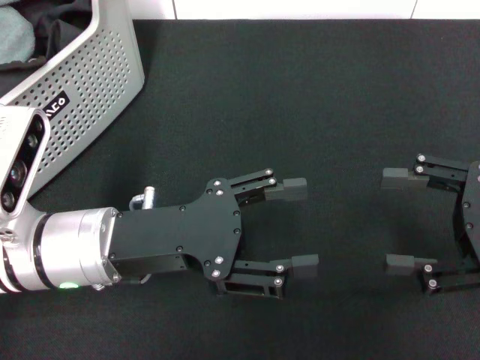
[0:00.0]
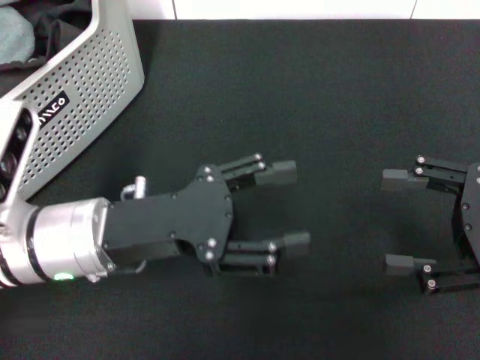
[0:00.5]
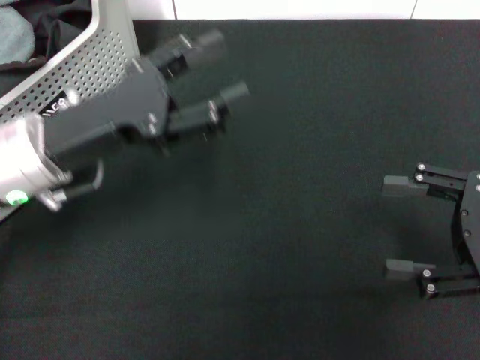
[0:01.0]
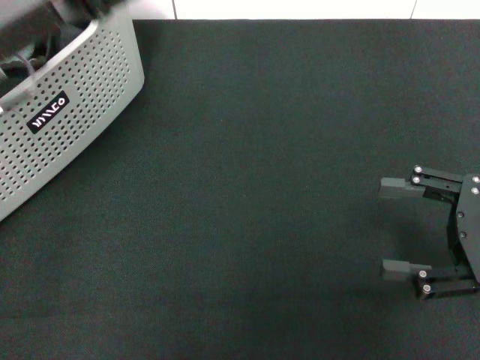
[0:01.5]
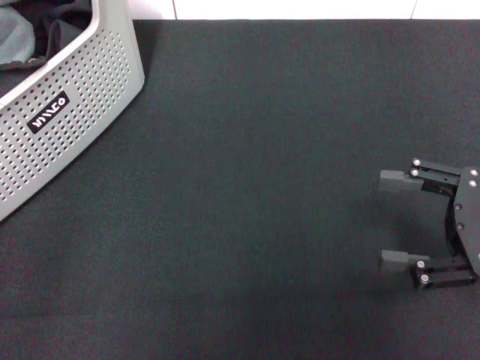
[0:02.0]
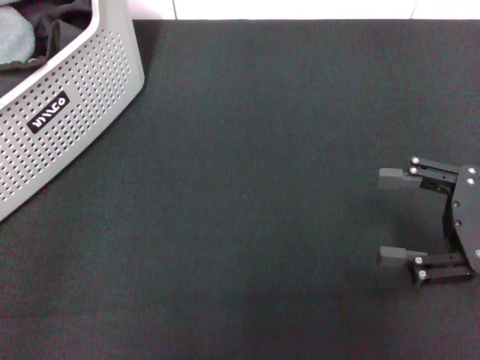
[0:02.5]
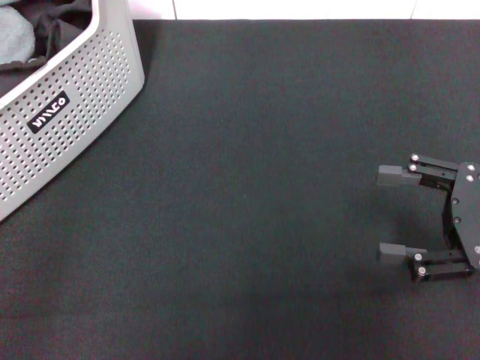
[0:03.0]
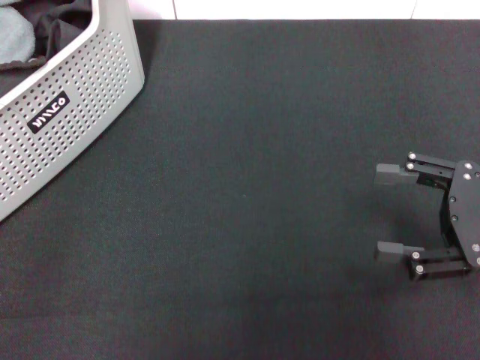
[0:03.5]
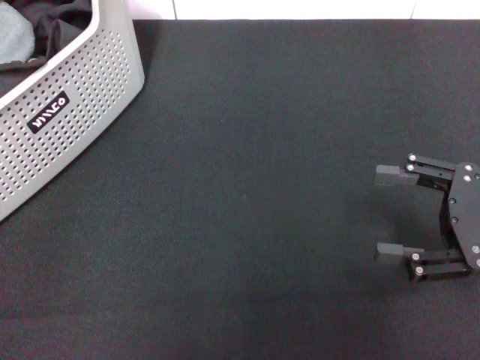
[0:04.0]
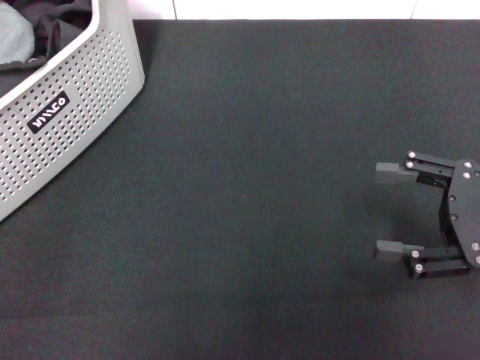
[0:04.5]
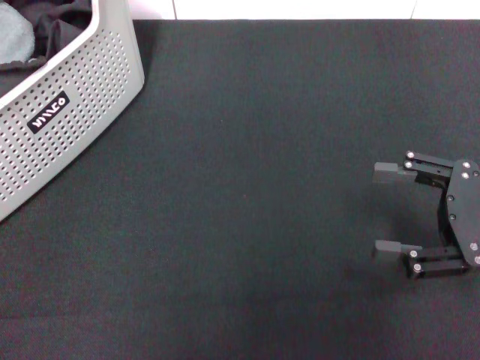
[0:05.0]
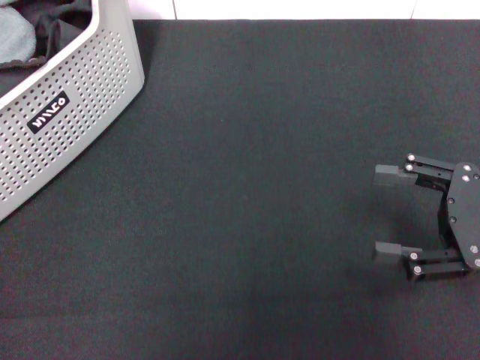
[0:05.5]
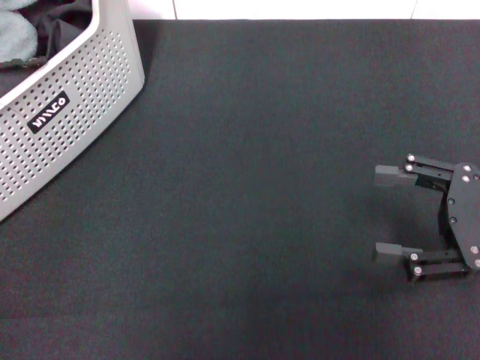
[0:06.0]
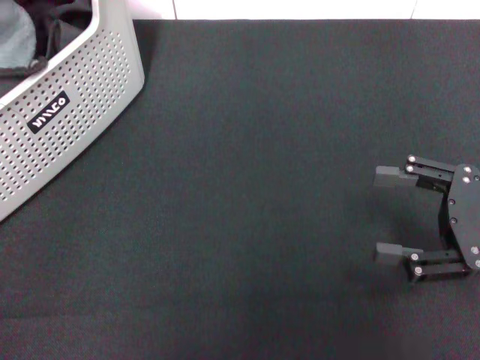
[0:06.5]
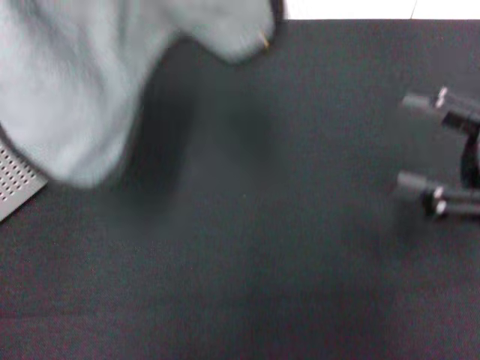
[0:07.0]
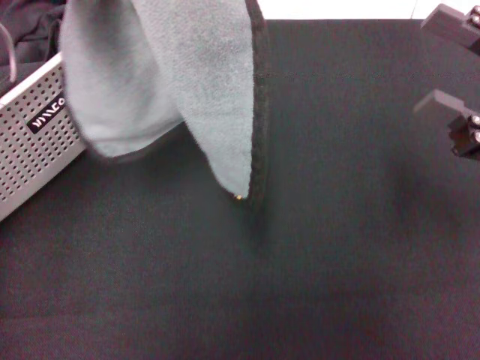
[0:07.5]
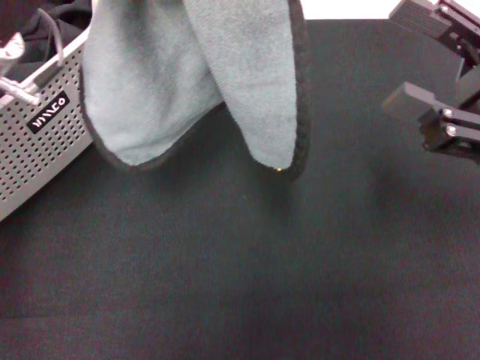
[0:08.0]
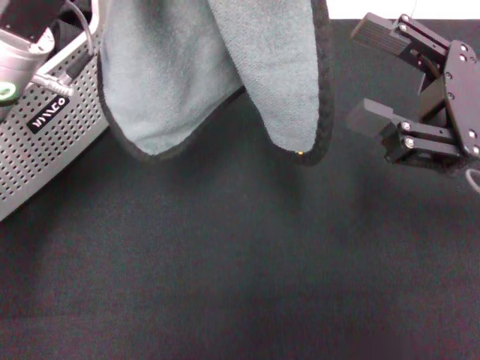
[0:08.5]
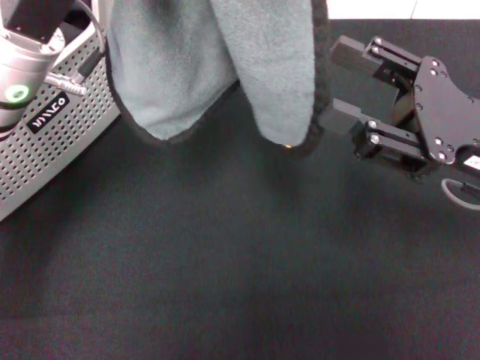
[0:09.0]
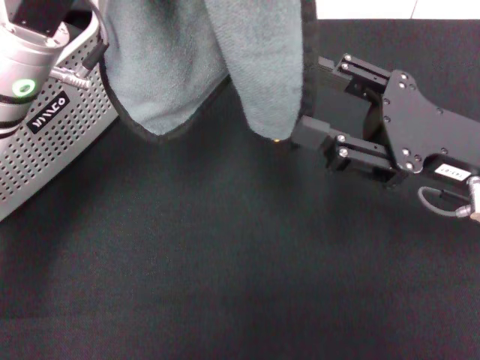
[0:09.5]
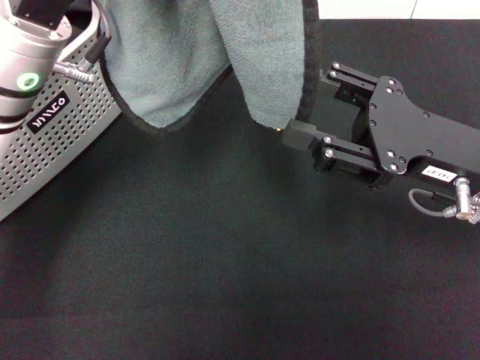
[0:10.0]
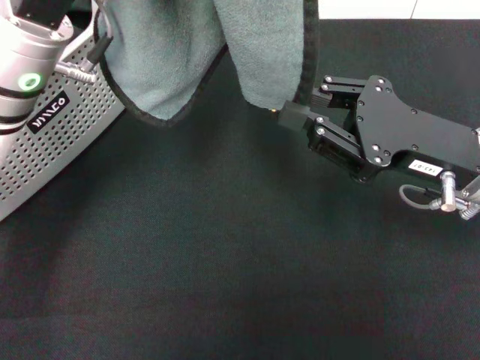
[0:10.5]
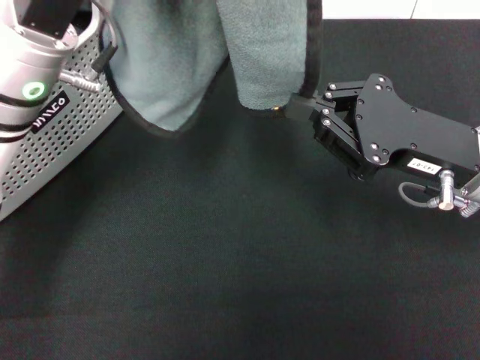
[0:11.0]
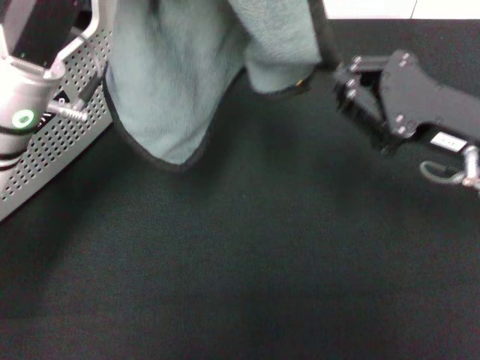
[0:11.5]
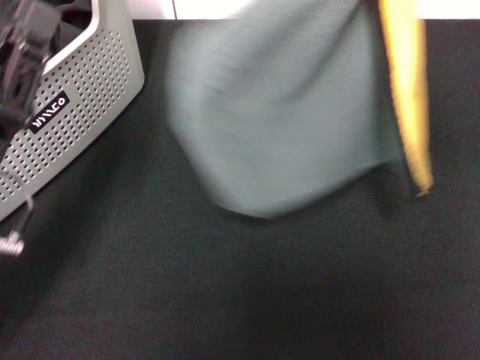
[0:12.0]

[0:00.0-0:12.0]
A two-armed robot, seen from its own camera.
Task of the whole recording: pick up the towel from the storage box and lay it flat on the black tablecloth.
Step, 0:00.0 to 0:05.5: Pick up a towel with the left gripper.
Step, 0:06.0 to 0:11.0: Spread the towel flat with the left gripper.
0:00.0 to 0:02.0: The left gripper shifts approximately 20 cm upward, to the left and forward.
0:02.0 to 0:04.0: The left gripper moves to the left, some 10 cm.
0:04.0 to 0:06.0: The left gripper closes its fingers.
0:06.0 to 0:08.0: The left gripper goes approximately 15 cm to the right; the right gripper ends up roughly 5 cm from where it was.
0:08.0 to 0:10.0: The right gripper changes place by roughly 5 cm.
0:10.0 to 0:12.0: The right gripper is displaced upward and to the right by some 15 cm, and closes its fingers, while the left gripper travels downward, backward and to the left by some 15 cm.

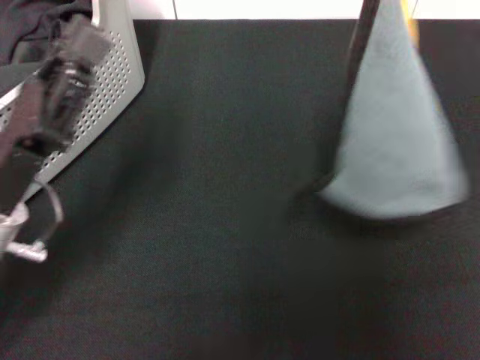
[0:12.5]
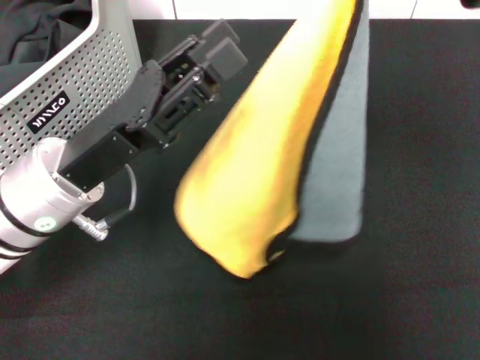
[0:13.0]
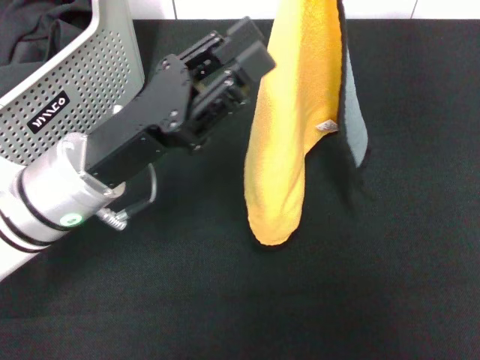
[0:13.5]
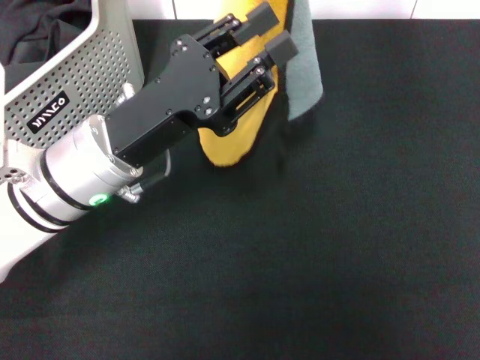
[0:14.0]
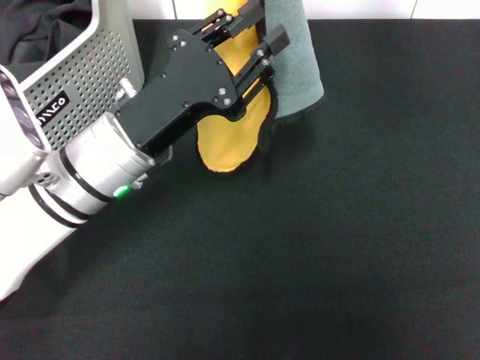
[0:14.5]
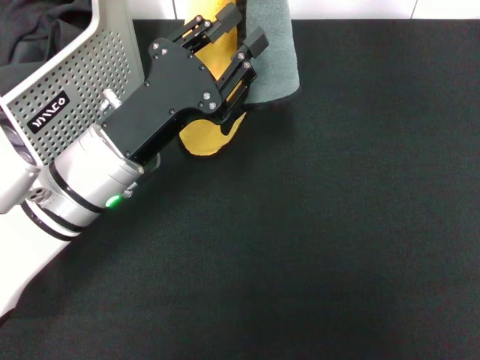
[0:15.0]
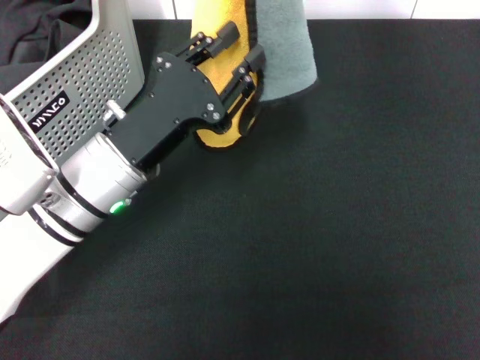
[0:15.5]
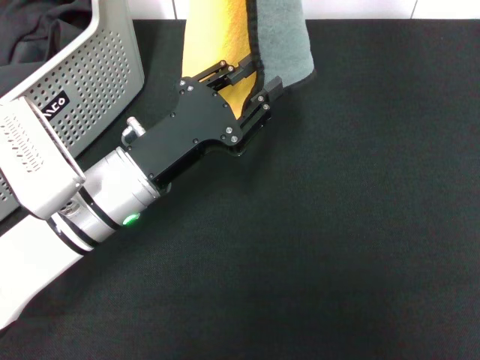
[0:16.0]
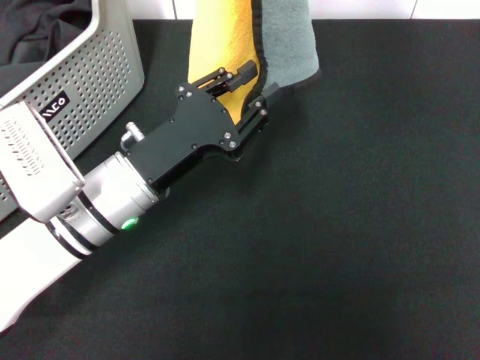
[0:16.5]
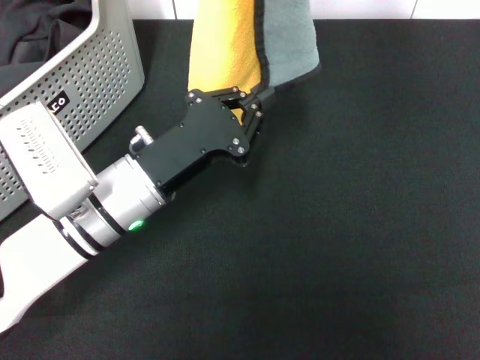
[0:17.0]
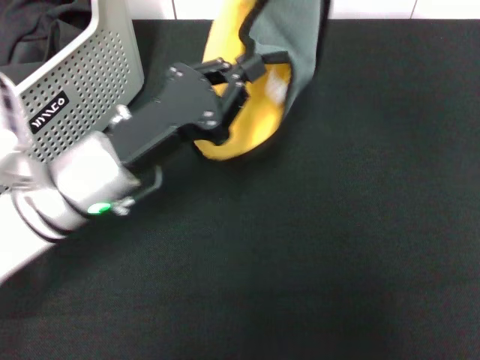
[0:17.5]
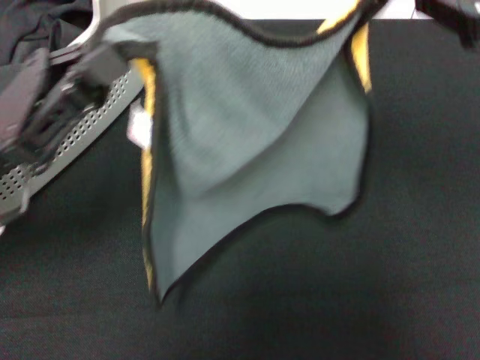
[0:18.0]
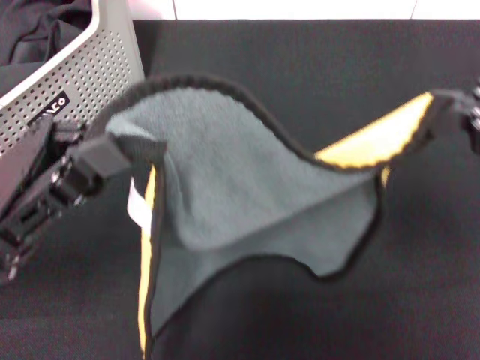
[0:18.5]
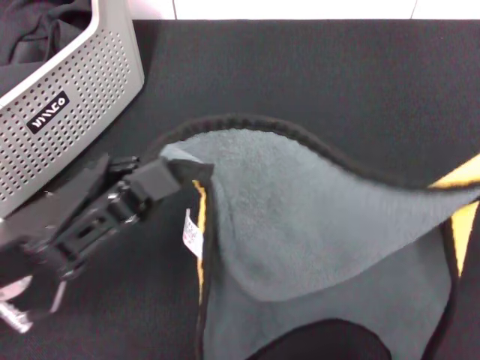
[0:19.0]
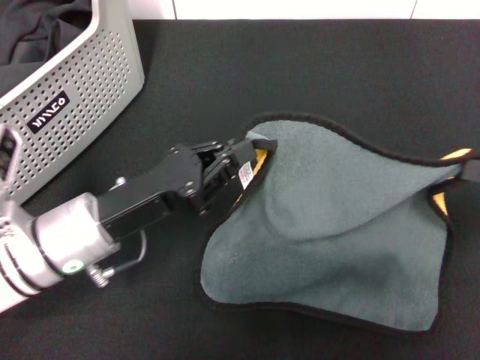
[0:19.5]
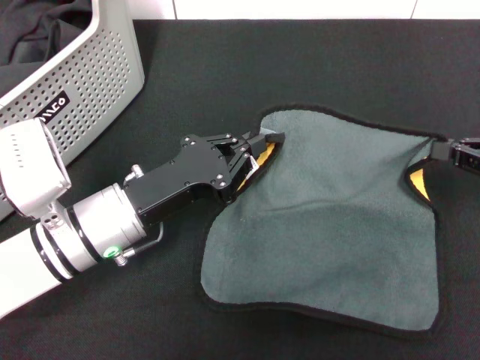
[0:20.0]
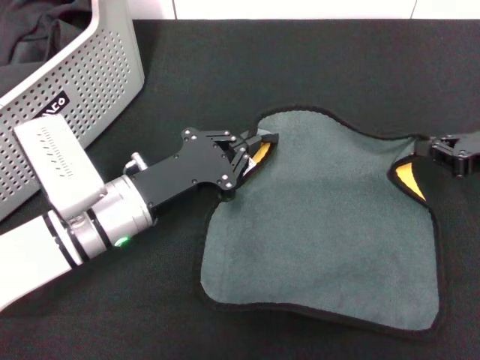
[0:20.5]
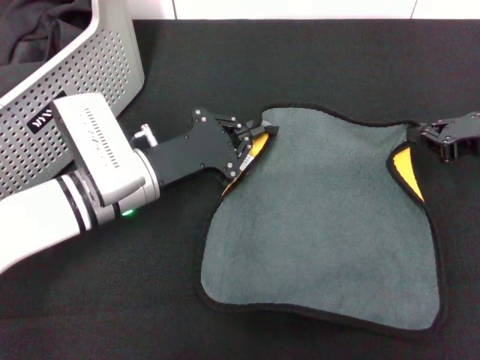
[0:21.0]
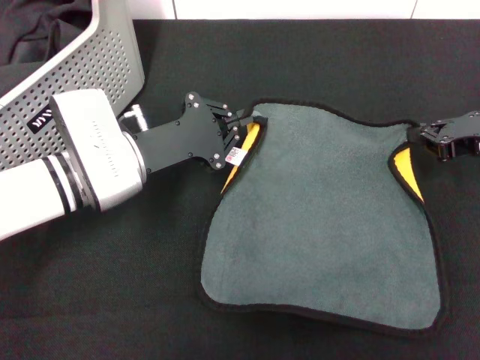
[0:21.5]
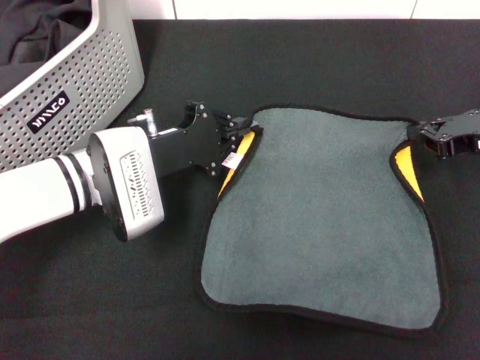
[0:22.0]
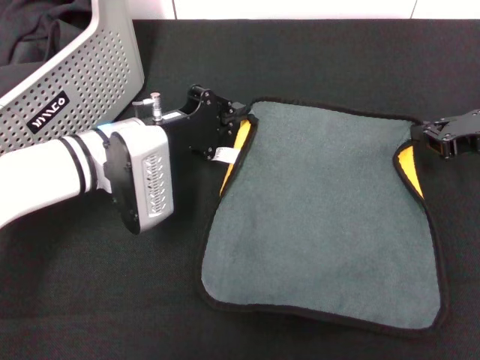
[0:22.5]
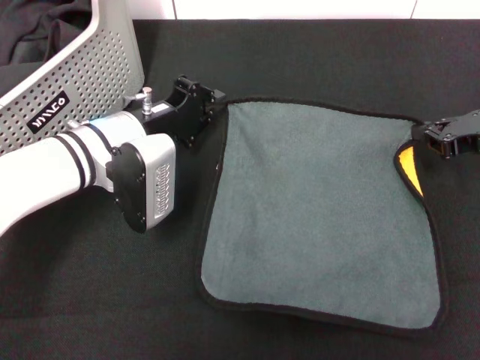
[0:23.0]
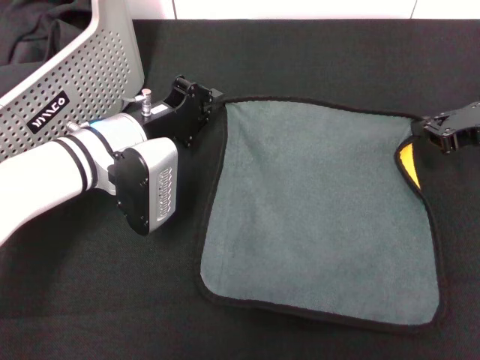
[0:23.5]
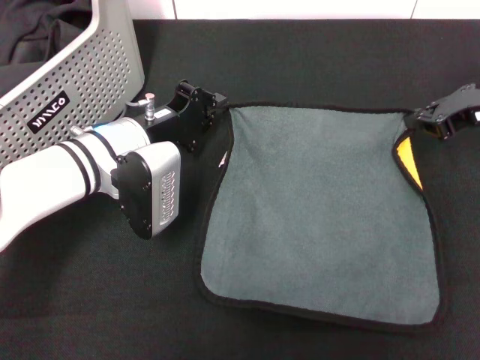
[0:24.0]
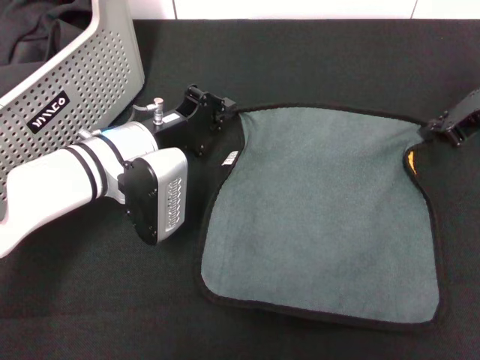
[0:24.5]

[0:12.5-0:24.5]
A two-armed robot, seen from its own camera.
Task of the whole recording: pick up the towel from the storage box and lay it flat on the black tablecloth.
0:12.5 to 0:14.5: The left gripper shifts roughly 10 cm to the right and forward. Meanwhile the right gripper moves to the left and forward, approximately 10 cm.
0:16.5 to 0:18.5: The left gripper shifts approximately 15 cm to the left, upward and backward, and closes its fingers. Meanwhile the right gripper moves backward, to the right and downward, about 20 cm.
0:18.5 to 0:20.5: The right gripper travels downward and forward by about 25 cm, while the left gripper moves downward, to the right and forward, approximately 15 cm.
0:20.5 to 0:22.5: The left gripper is displaced forward by some 5 cm.
0:22.5 to 0:24.5: The right gripper heads upward, covering about 5 cm.

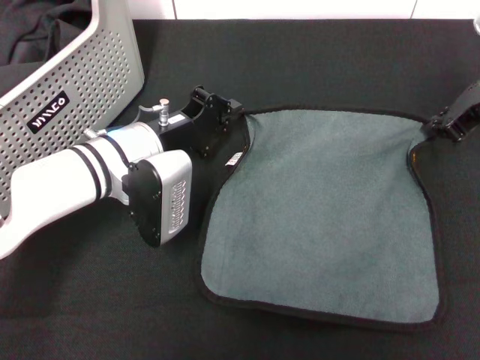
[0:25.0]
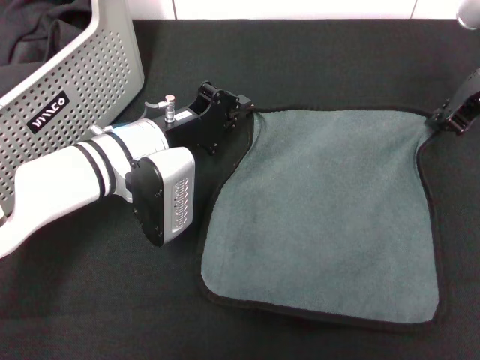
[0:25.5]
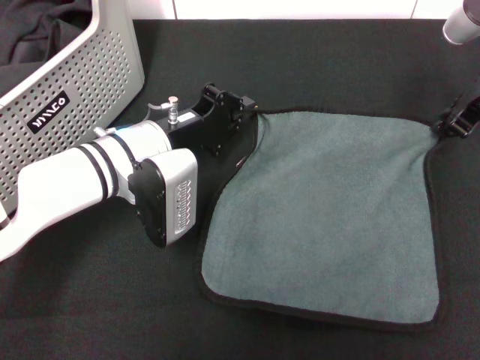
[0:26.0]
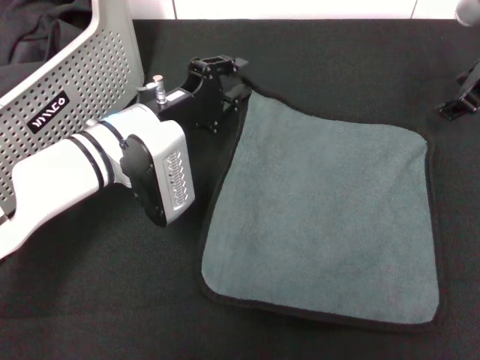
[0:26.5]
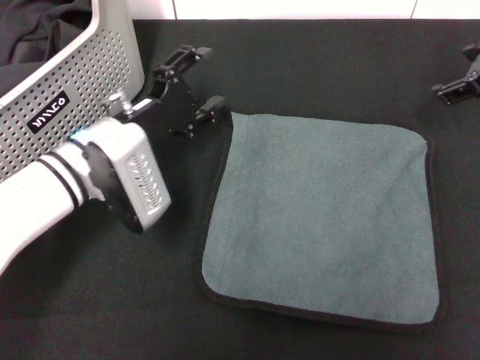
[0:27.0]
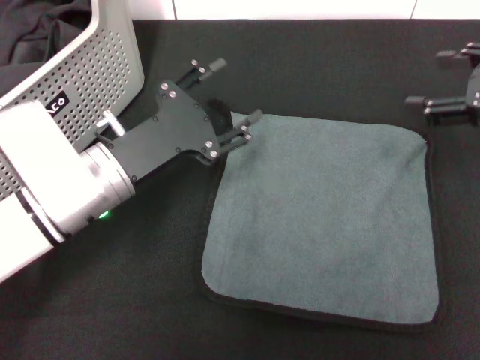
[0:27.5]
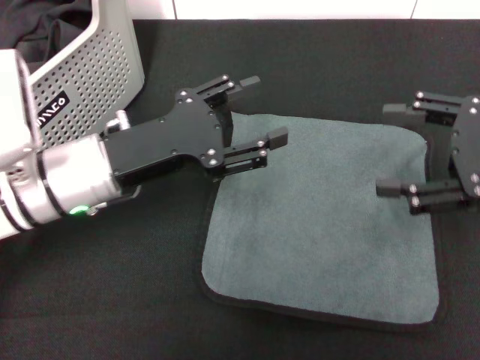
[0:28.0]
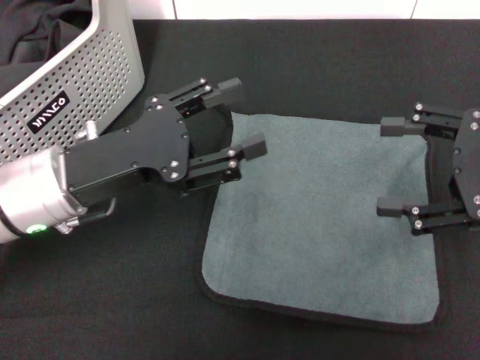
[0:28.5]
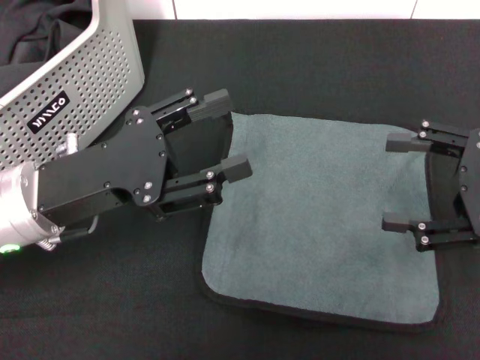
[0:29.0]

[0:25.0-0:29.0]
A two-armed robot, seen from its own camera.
Task of the whole recording: pick up the towel from the storage box and lay it flat on the black tablecloth.
0:25.0 to 0:27.0: The right gripper opens; the left gripper opens its fingers.
0:27.0 to 0:29.0: The left gripper shifts approximately 10 cm backward and upward, while the right gripper shifts about 15 cm backward.
